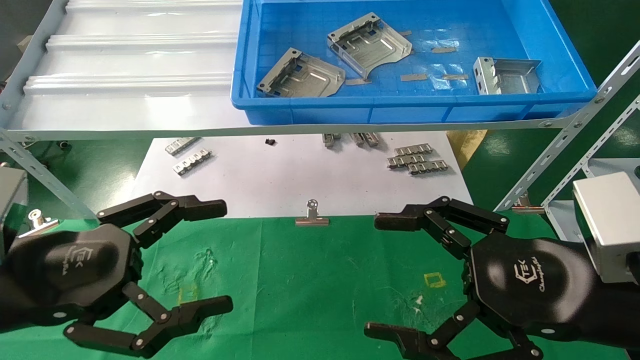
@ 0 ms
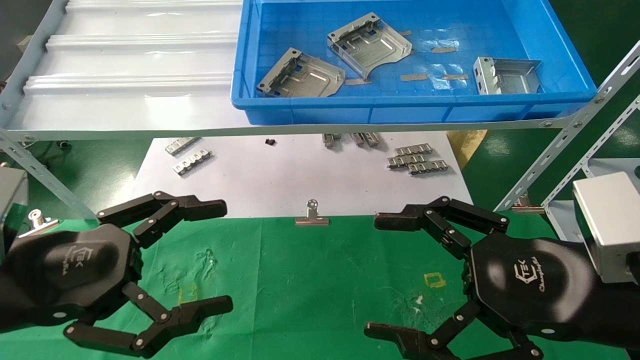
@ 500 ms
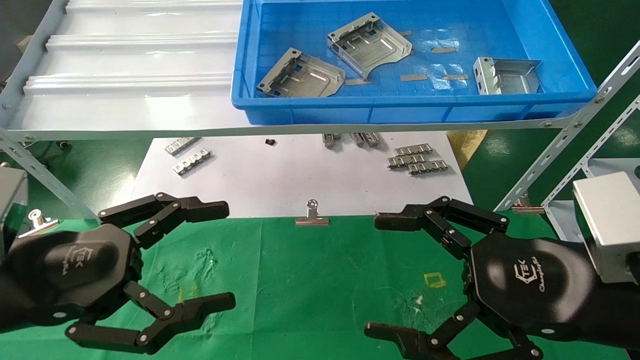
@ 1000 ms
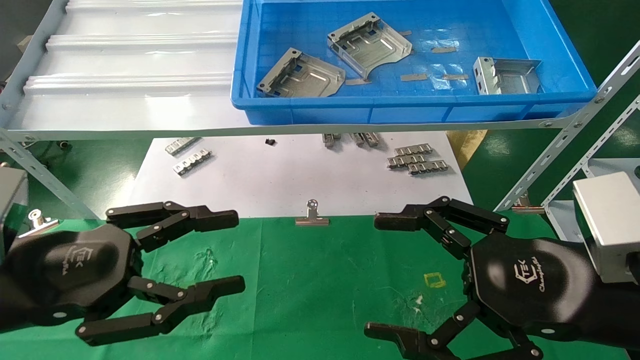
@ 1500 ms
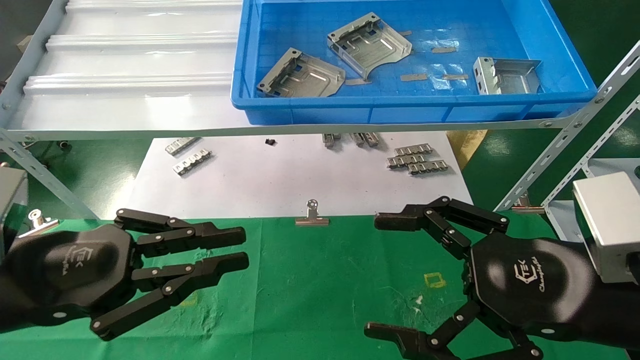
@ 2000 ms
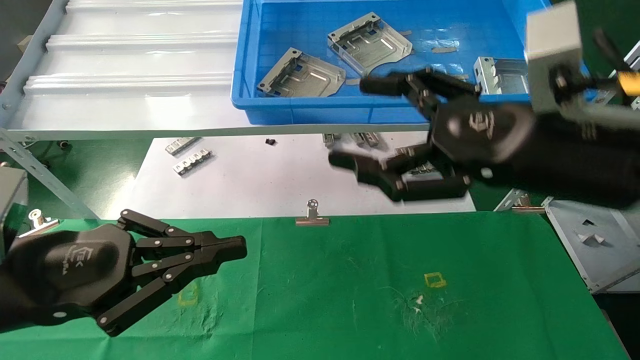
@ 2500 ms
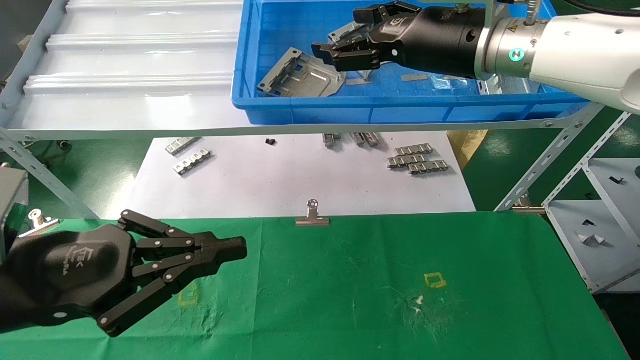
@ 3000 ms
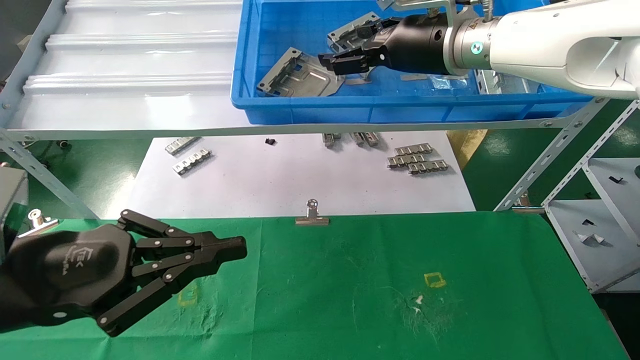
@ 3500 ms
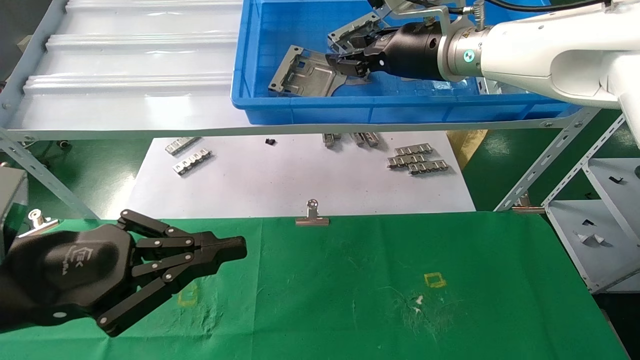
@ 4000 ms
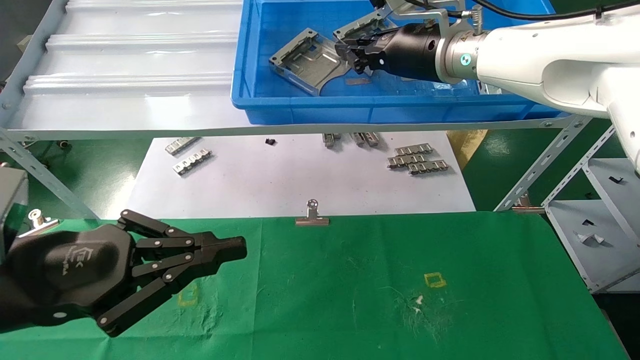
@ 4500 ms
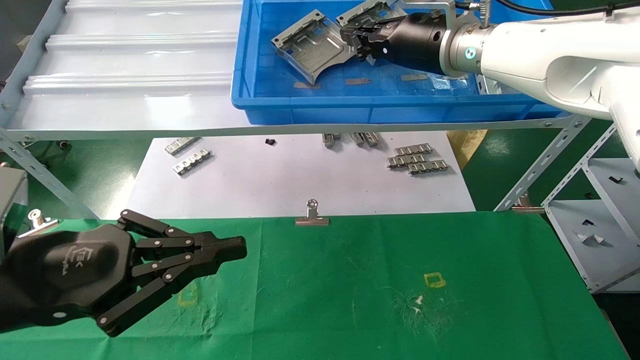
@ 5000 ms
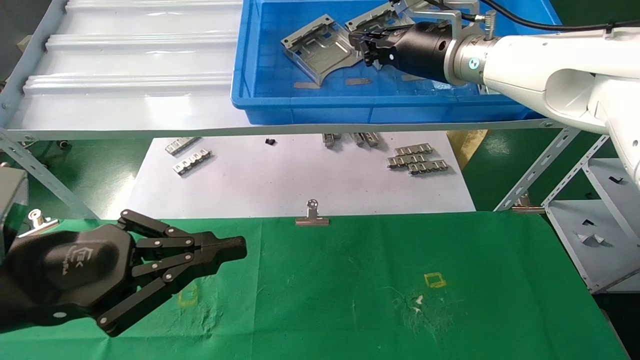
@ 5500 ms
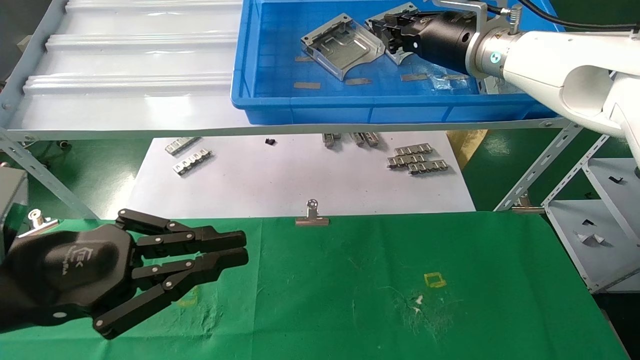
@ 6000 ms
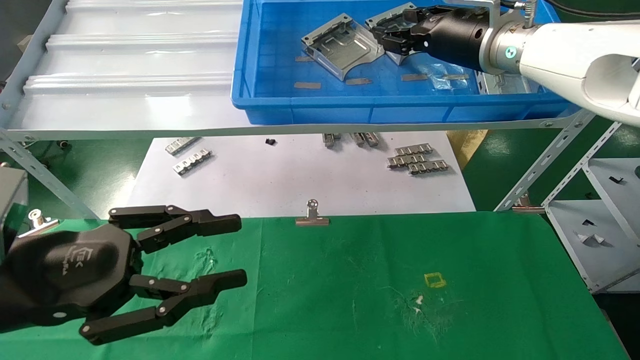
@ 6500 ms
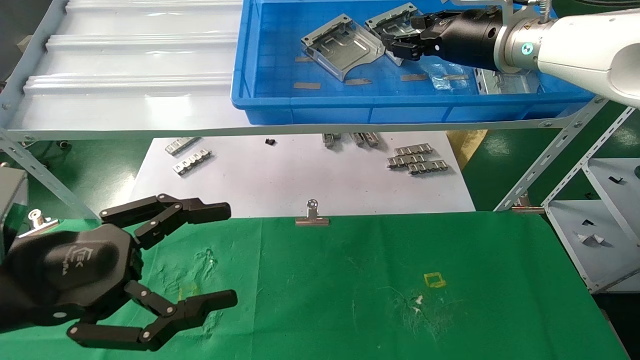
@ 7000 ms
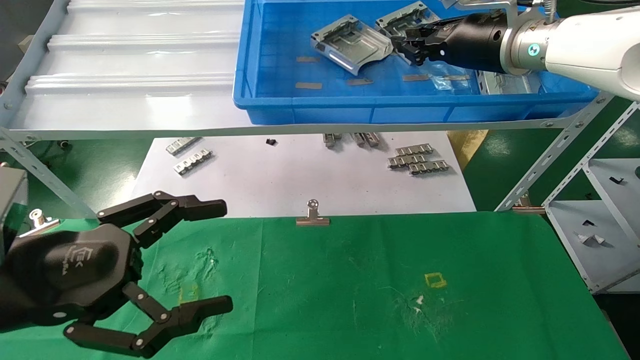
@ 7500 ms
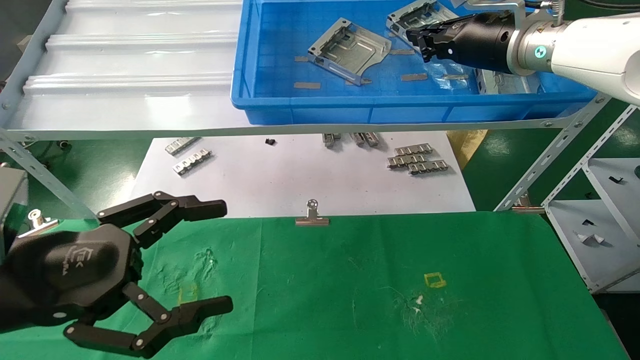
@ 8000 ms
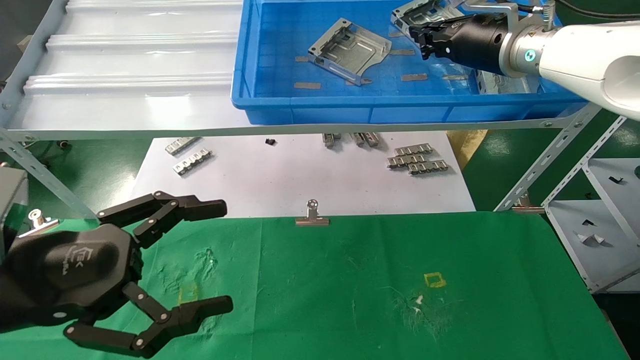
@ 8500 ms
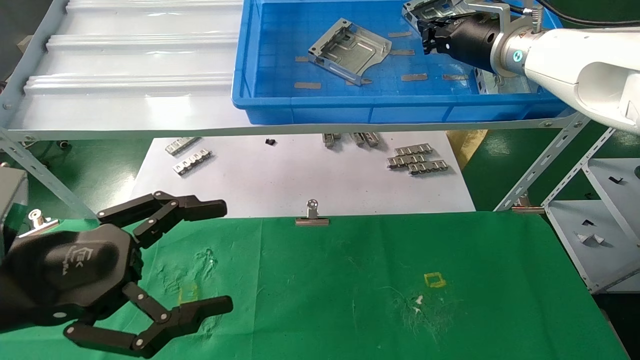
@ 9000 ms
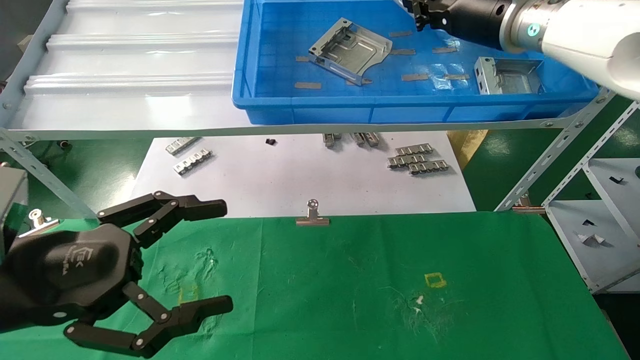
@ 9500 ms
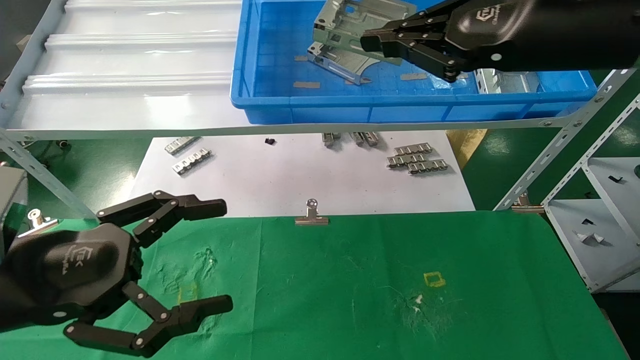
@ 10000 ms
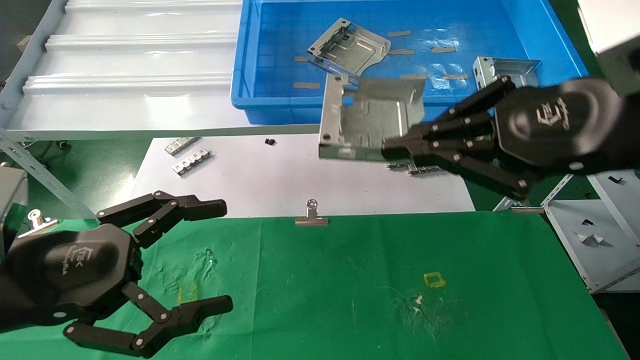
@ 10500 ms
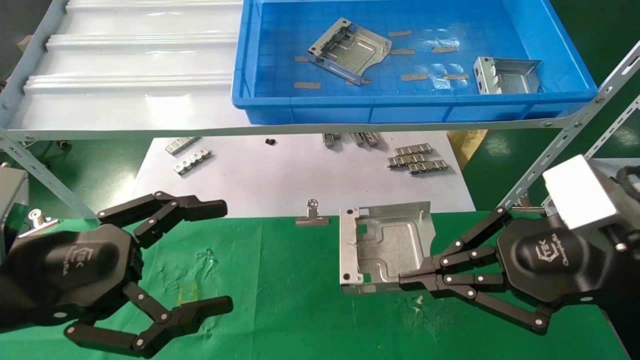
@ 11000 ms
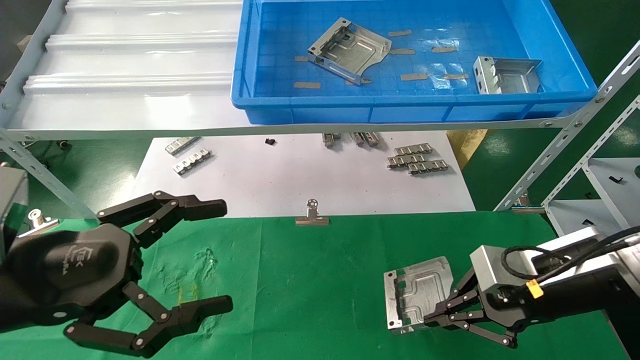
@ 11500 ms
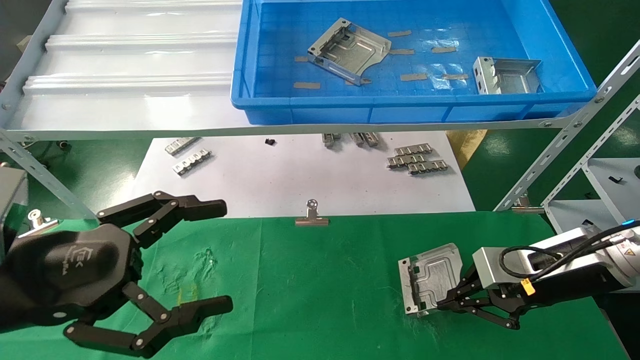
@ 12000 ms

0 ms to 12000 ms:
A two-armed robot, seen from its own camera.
Task of the whole recording: use the mechanical arm to pick up the parts and place them on the table.
Step, 1500 ms to 10500 ms: Pick up the hard drive bracket from the feeding area.
0 ms to 2000 ms: The left gripper closes up.
2000 ms to 4000 ms: The right gripper is displaced forward and upward by some 30 cm, and closes its fingers.
4000 ms to 6000 ms: The right gripper closes its fingers.
6000 ms to 8000 ms: The left gripper opens its fingers, while the right gripper opens and closes again.
8000 ms to 10000 ms: The right gripper moves backward, roughly 15 cm.
10000 ms to 12000 ms: The right gripper heads downward, covering some 25 cm.

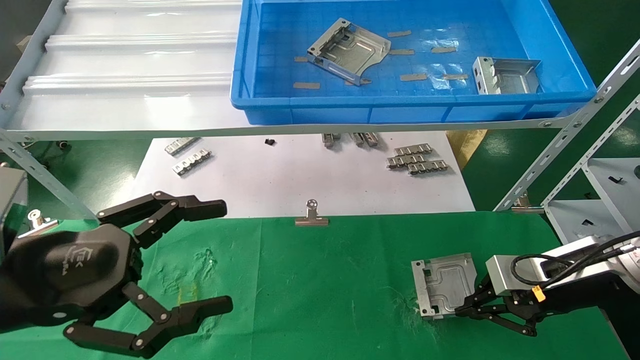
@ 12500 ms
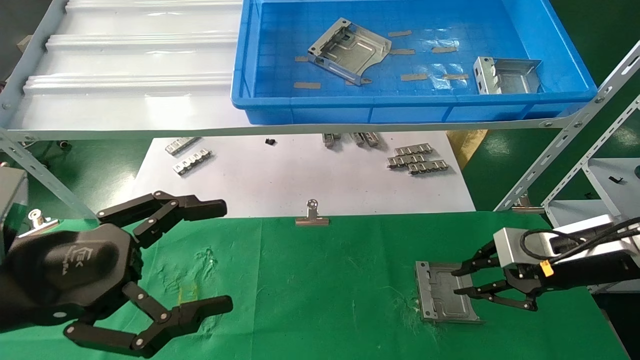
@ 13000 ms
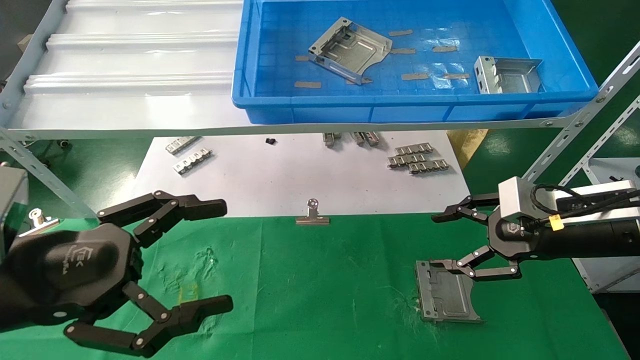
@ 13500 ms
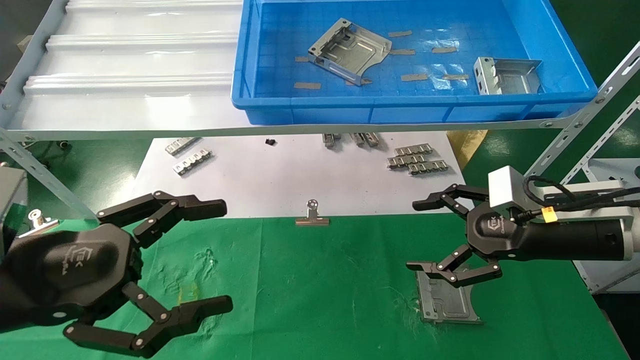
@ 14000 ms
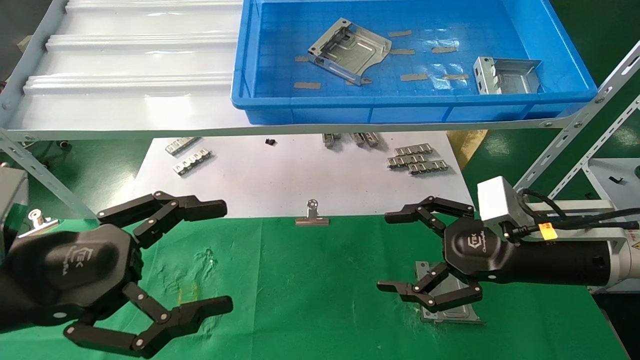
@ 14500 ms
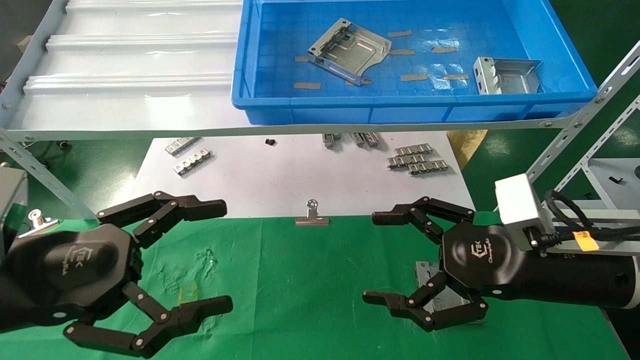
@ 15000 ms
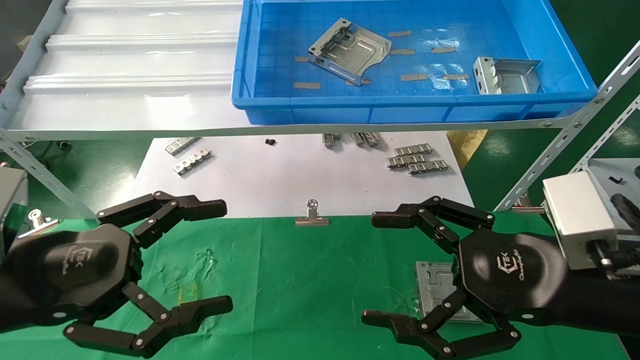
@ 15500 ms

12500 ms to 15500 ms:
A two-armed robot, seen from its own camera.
Task of the whole recording: use the mechanical arm to pick up the parts and place them on the table.
12500 ms to 14000 ms: The right gripper moves approximately 5 cm, and opens.
14000 ms to 15500 ms: The right gripper shifts about 10 cm backward and to the left.
